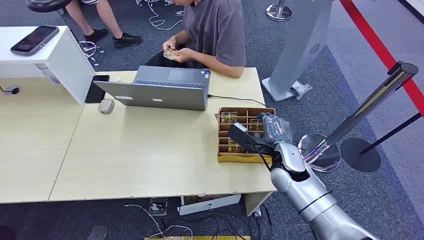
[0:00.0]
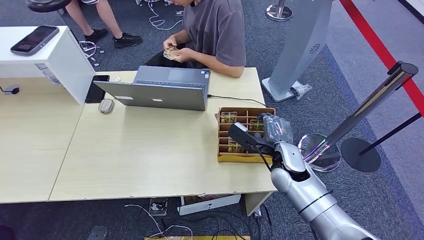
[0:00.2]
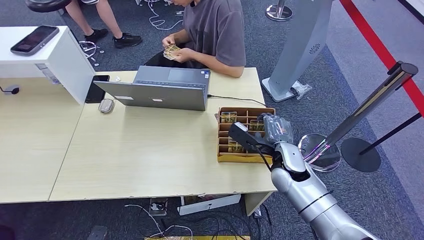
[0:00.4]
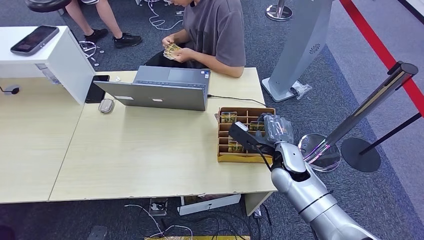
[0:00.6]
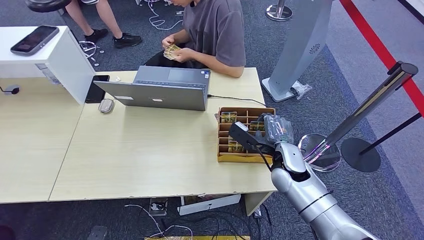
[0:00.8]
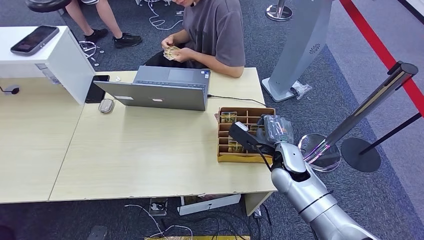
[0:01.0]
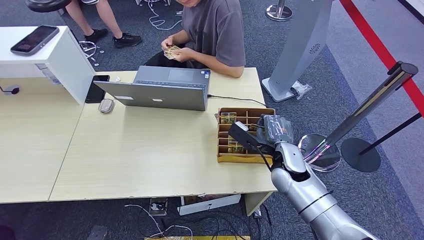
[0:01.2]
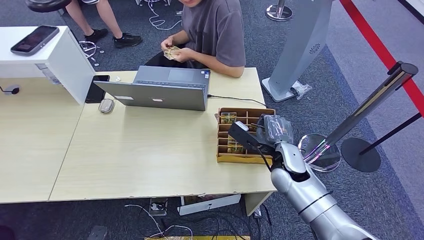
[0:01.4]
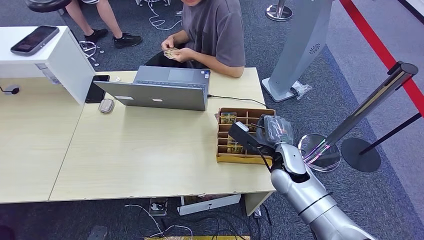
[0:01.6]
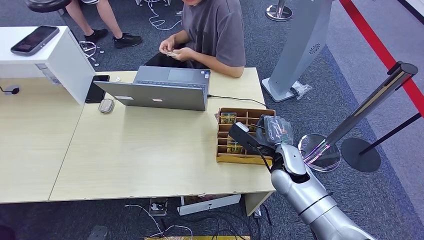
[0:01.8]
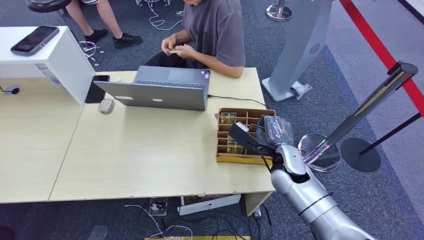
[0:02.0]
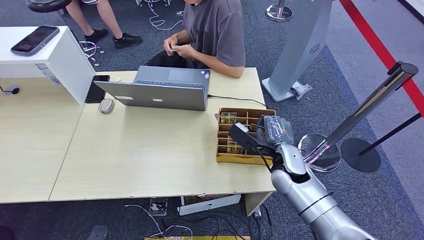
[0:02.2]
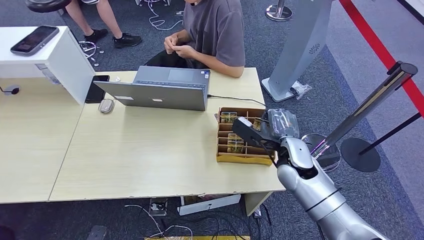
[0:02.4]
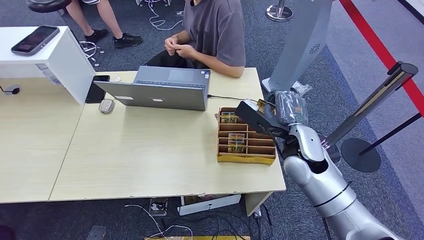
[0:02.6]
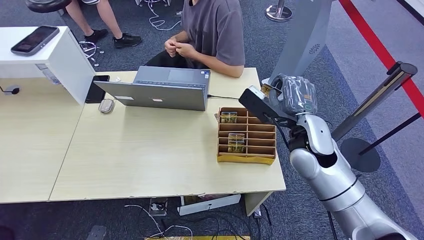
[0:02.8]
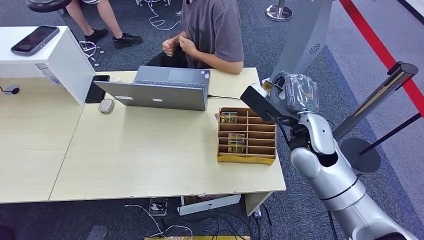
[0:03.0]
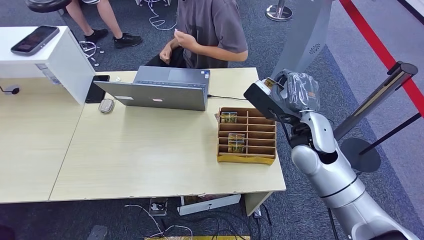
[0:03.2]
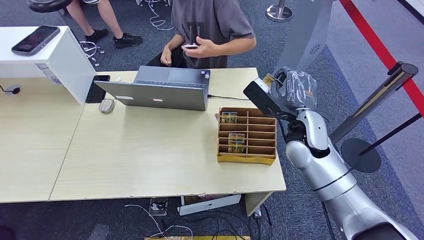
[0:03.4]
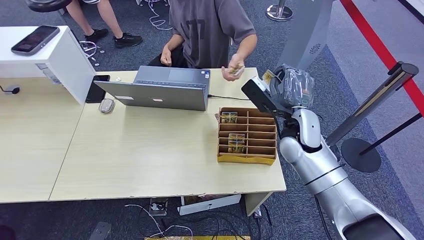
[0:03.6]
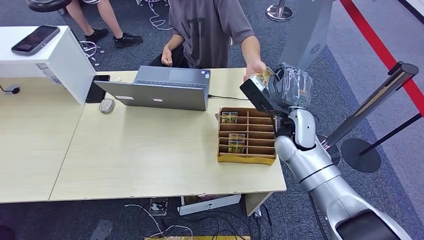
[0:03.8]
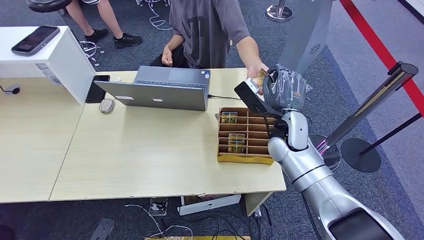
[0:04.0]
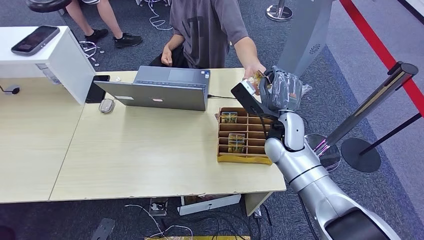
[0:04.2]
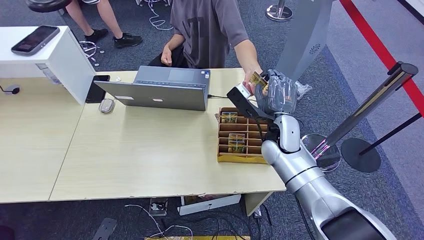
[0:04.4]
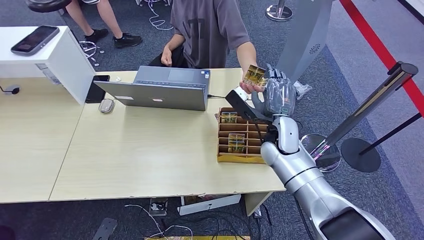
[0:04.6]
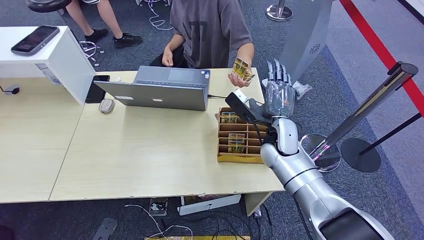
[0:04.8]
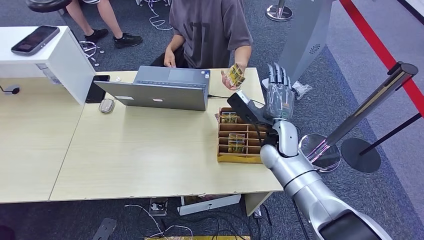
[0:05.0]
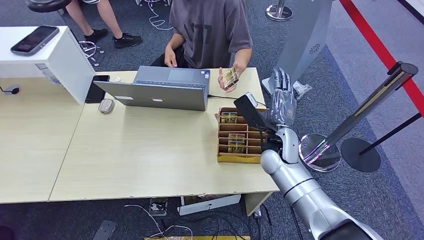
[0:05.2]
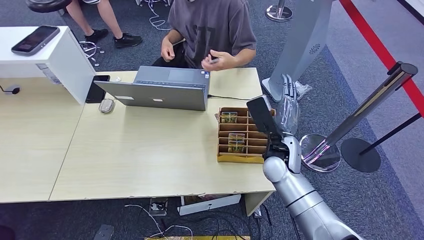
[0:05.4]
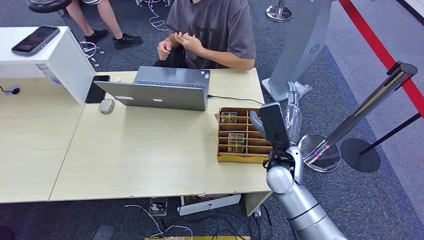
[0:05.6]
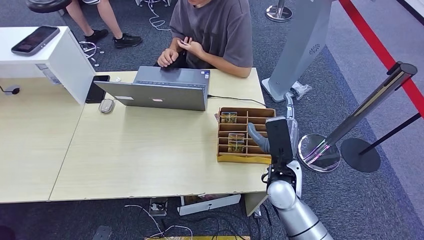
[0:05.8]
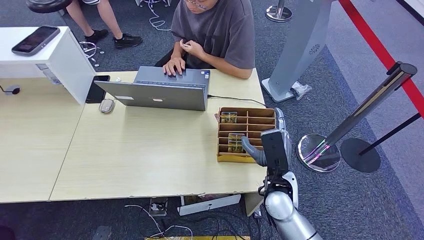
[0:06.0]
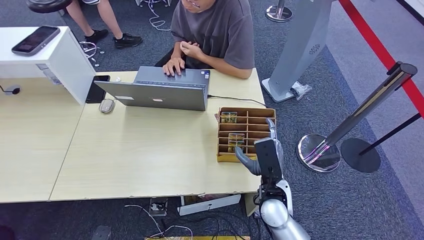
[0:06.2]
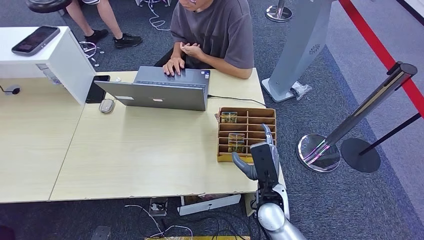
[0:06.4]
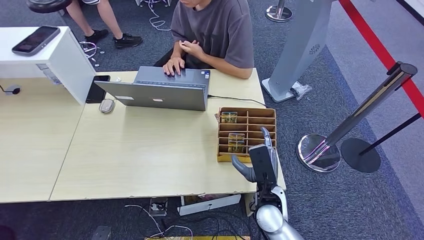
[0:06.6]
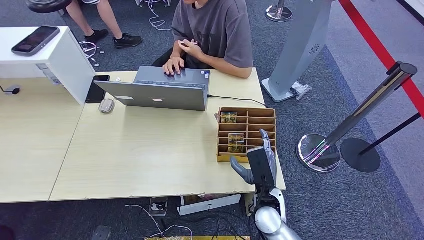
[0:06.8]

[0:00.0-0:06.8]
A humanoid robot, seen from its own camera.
Step, 0:00.0 to 0:02.6: Pick up the room card from the card holder.
Step, 0:02.8 to 0:06.8: Hand the room card to the target.
0:01.4 to 0:02.8: The right hand is displaced upward by roughly 10 cm.
0:02.8 to 0:04.0: The right hand shifts approximately 5 cm forward.
0:04.0 to 0:05.4: The right hand changes place by about 5 cm.
0:05.4 to 0:06.8: The right hand goes approximately 15 cm backward and downward.
